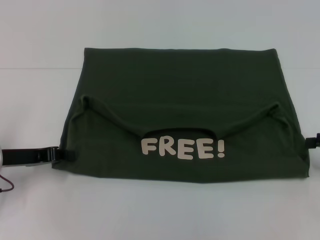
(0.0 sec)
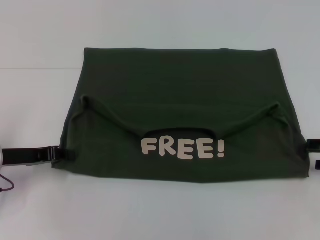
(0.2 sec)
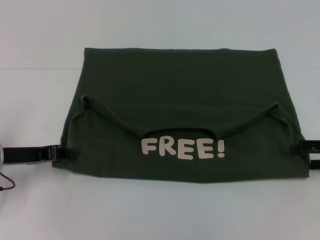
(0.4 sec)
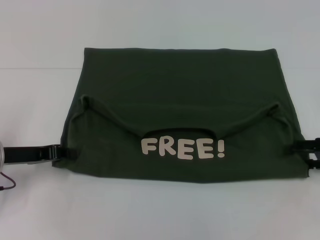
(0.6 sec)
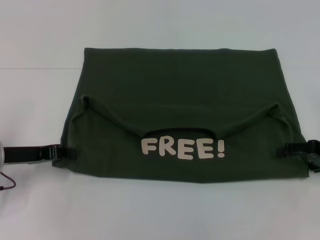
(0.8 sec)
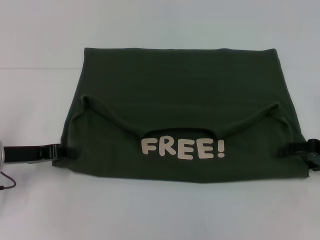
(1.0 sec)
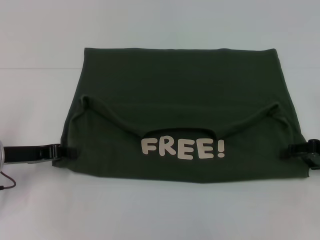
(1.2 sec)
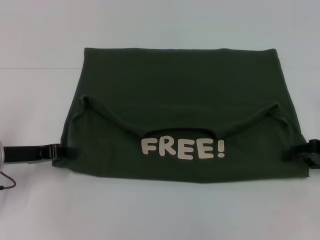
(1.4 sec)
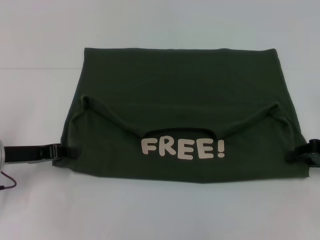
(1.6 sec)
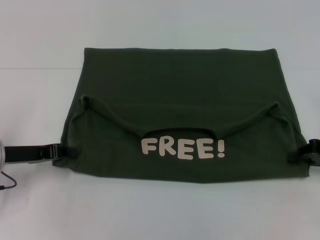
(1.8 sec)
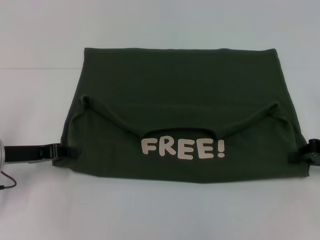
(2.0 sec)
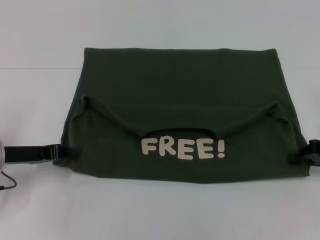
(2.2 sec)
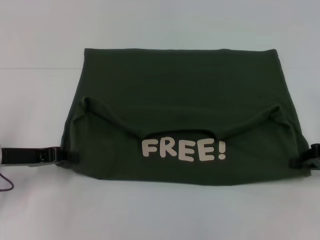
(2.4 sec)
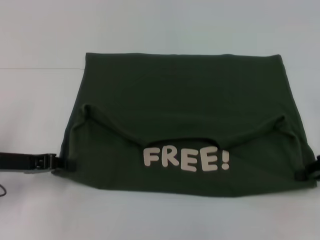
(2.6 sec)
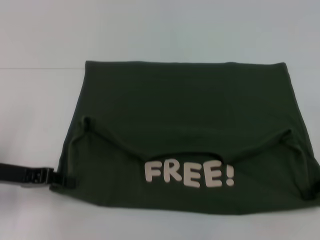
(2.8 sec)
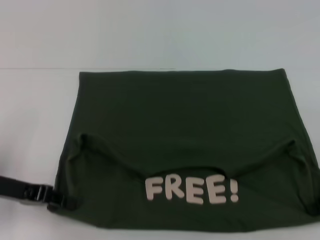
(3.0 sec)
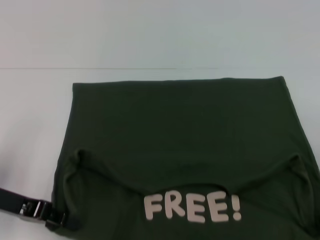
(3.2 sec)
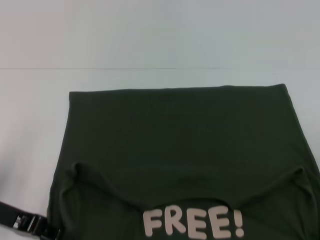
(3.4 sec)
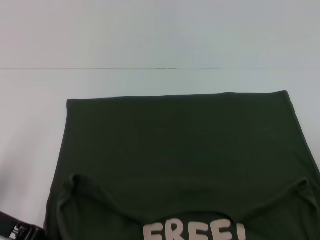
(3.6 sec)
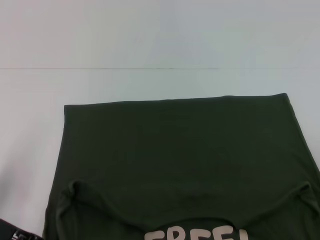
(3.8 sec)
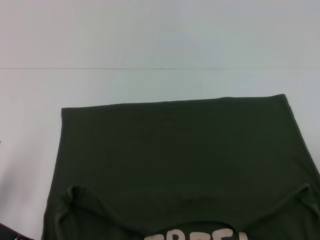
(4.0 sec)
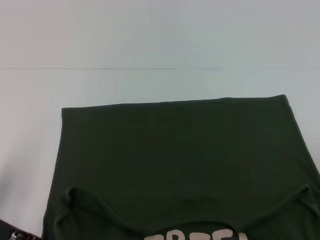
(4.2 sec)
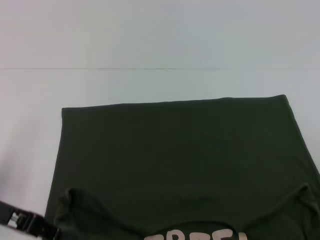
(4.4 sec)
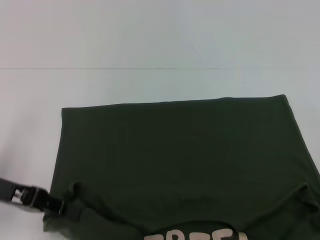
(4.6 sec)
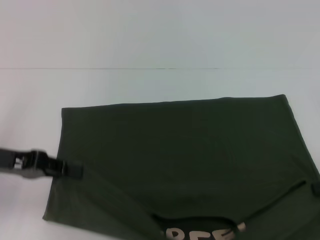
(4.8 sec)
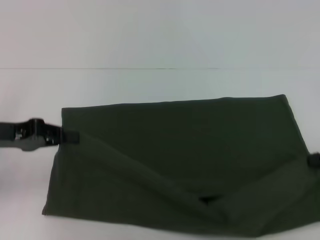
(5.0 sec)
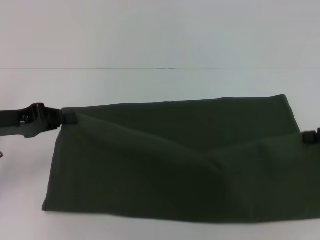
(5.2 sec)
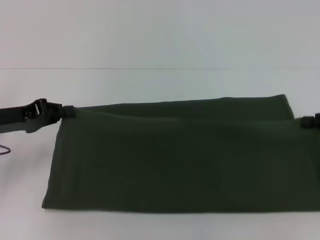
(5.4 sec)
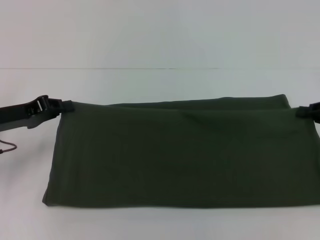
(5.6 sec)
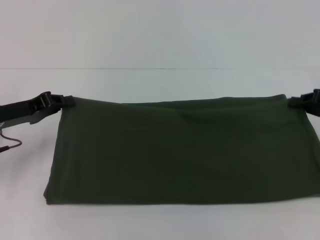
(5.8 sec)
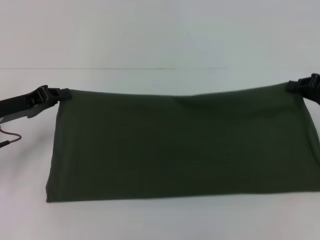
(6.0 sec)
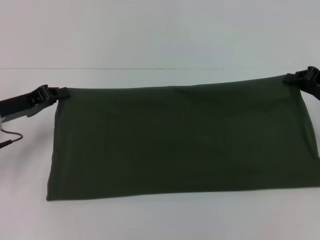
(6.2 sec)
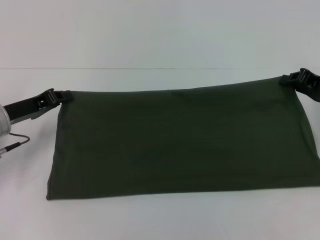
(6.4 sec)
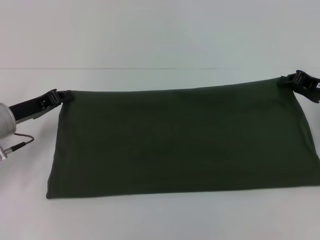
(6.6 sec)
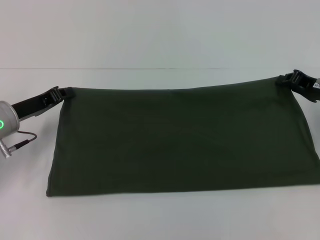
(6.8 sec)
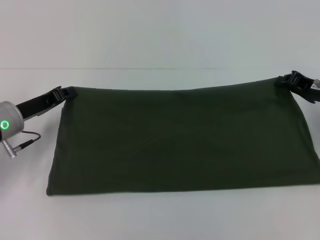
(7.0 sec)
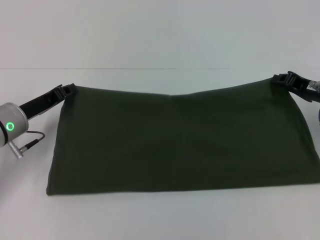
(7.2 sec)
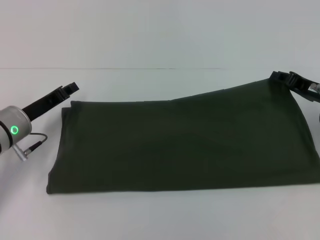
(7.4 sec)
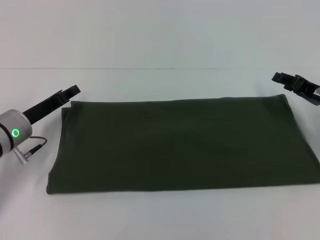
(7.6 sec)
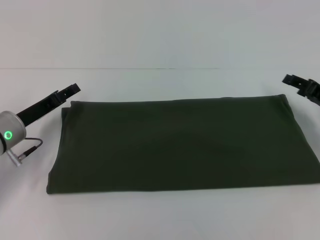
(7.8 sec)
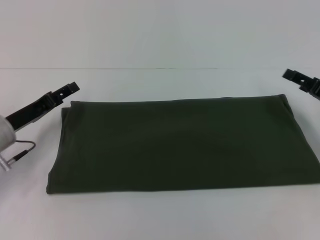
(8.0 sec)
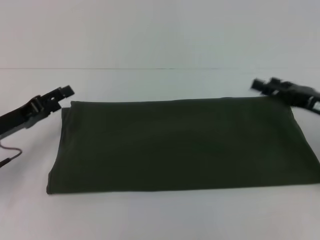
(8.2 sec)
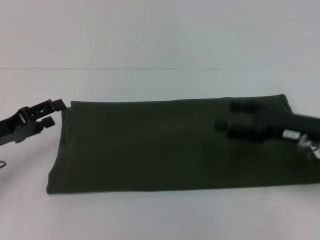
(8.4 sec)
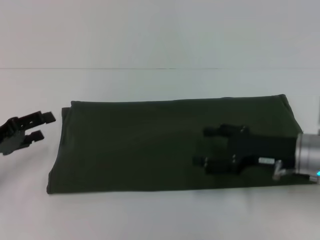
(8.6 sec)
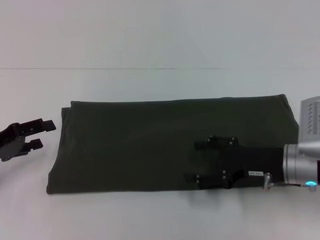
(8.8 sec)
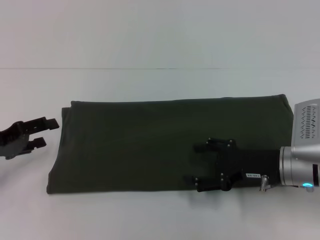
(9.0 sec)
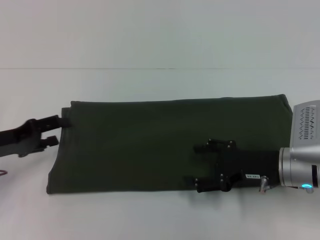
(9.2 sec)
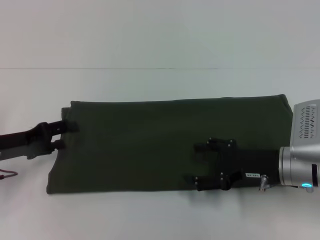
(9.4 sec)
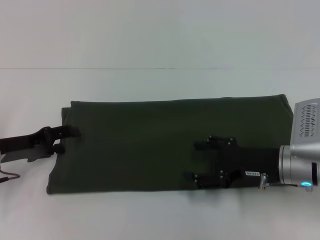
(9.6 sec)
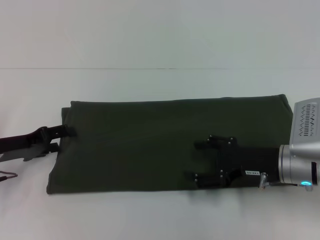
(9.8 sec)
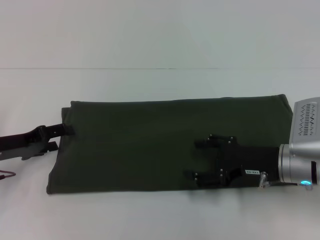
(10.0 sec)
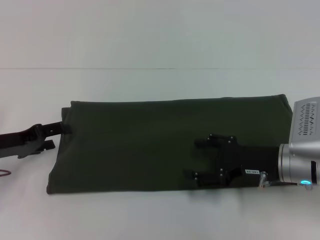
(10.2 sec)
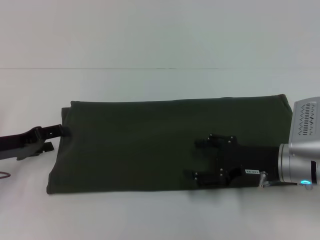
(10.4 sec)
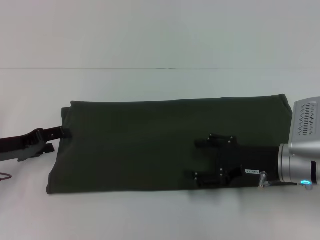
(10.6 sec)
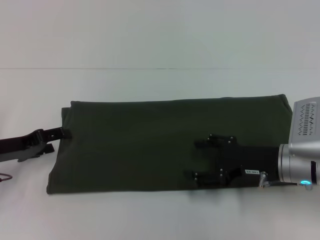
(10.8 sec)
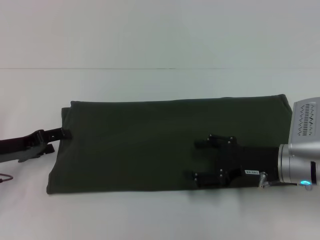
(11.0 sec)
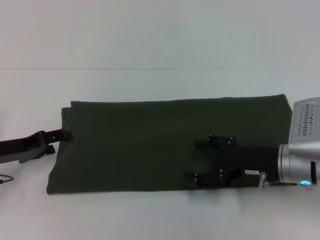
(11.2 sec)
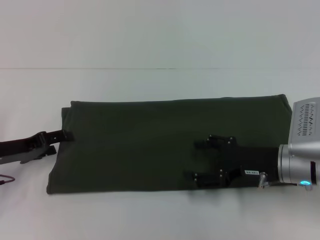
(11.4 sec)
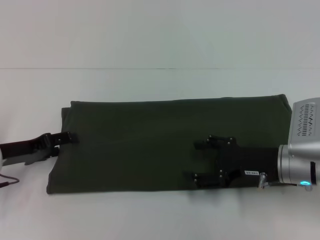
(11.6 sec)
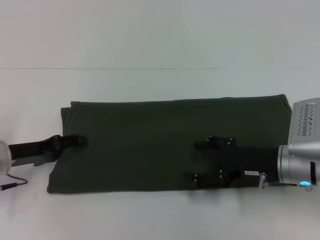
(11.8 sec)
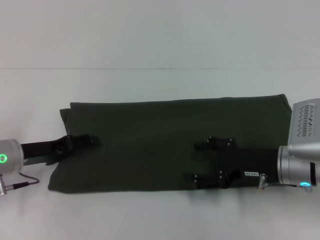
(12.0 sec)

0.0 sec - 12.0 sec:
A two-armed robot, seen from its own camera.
Step, 0.0 sec - 3.2 sec: Pull the clothes with your left hand.
Step, 0.0 sec - 3.2 sec: Pull the clothes with your right hand.
Step, 3.4 sec - 7.6 sec: Fold the clothes with your right hand.
0.0 sec - 1.6 sec: The right gripper closes.
1.6 sec - 3.0 sec: The right gripper closes.
4.4 sec - 6.0 sec: The two grippers go approximately 10 cm forward.
6.0 sec - 7.6 sec: The right gripper opens its fingers, while the left gripper ends up approximately 5 cm from where it was.
7.6 sec - 9.0 sec: Both grippers move to the left and backward, roughly 10 cm. The left gripper opens; the right gripper opens.
9.0 sec - 10.4 sec: The grippers make only small movements.
10.4 sec - 12.0 sec: There are only small adjustments of the grippers.

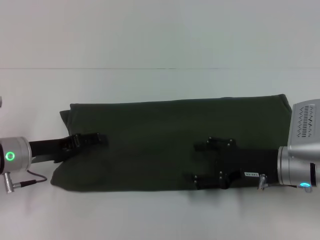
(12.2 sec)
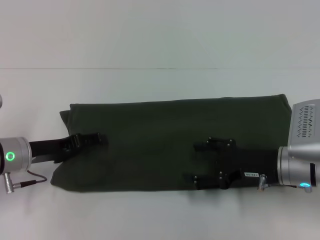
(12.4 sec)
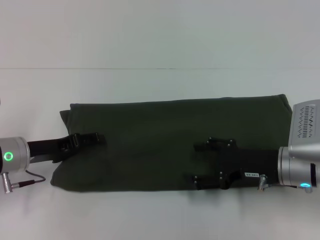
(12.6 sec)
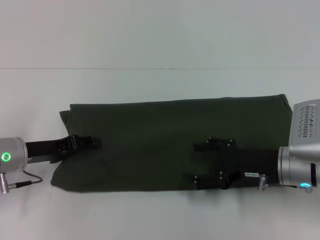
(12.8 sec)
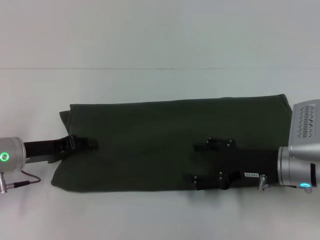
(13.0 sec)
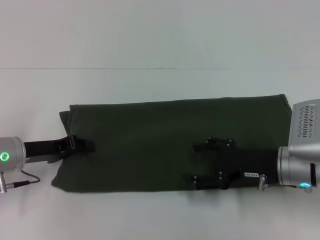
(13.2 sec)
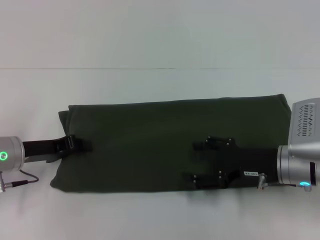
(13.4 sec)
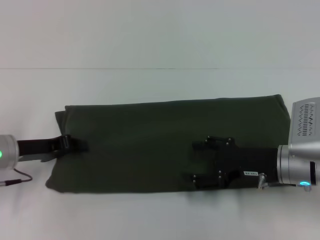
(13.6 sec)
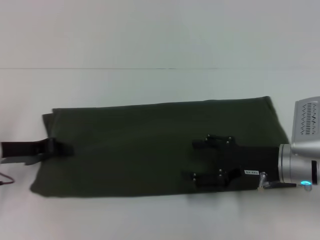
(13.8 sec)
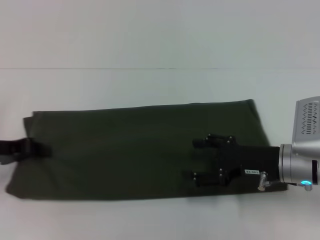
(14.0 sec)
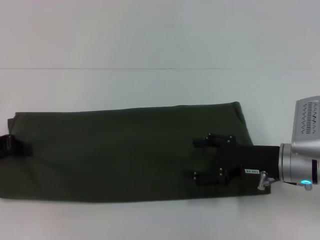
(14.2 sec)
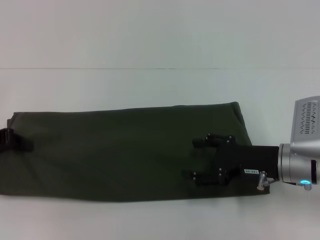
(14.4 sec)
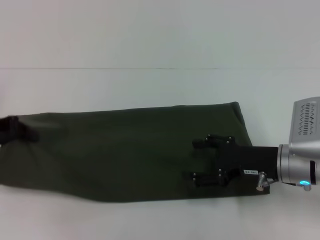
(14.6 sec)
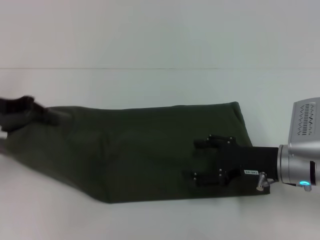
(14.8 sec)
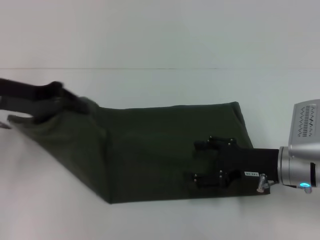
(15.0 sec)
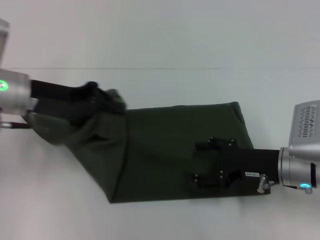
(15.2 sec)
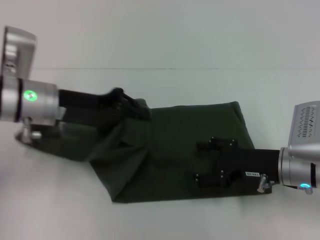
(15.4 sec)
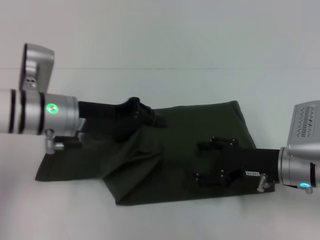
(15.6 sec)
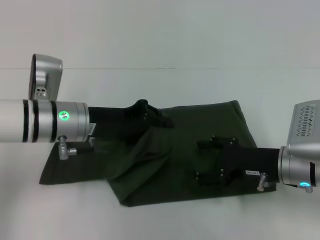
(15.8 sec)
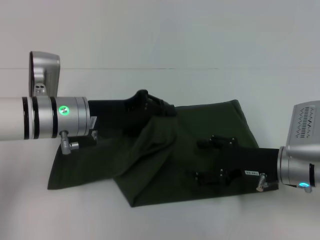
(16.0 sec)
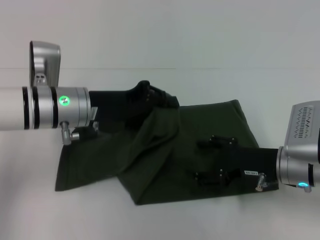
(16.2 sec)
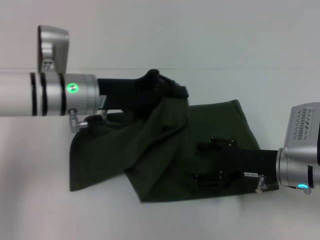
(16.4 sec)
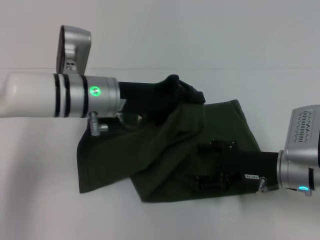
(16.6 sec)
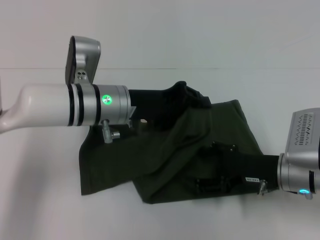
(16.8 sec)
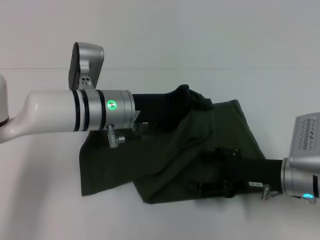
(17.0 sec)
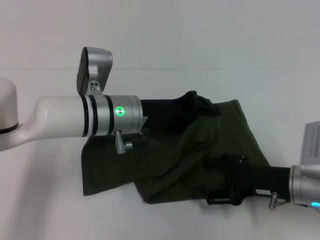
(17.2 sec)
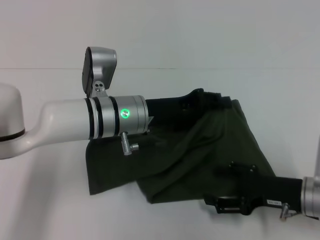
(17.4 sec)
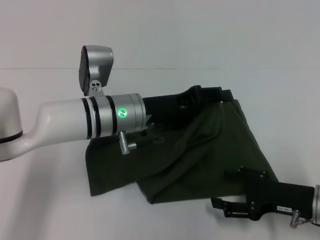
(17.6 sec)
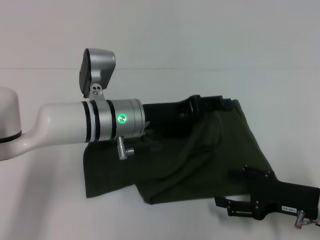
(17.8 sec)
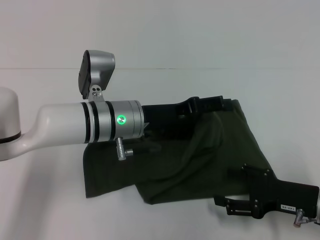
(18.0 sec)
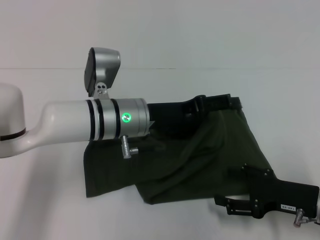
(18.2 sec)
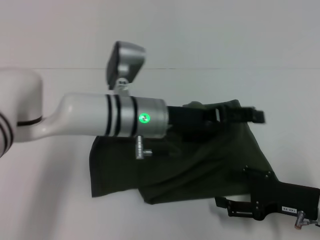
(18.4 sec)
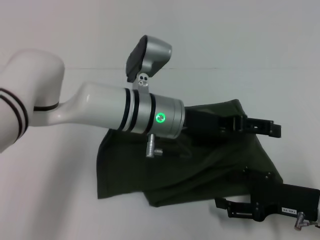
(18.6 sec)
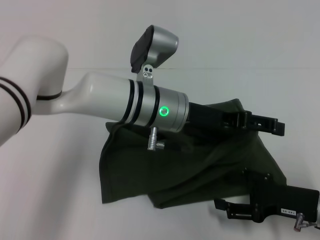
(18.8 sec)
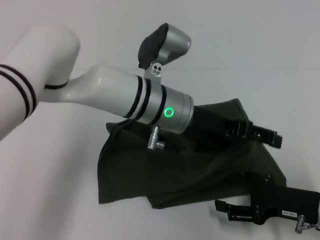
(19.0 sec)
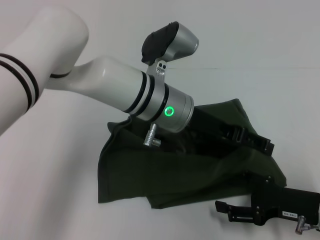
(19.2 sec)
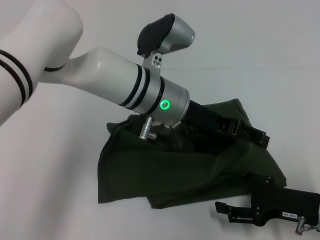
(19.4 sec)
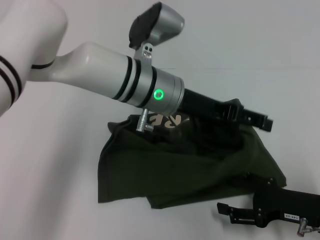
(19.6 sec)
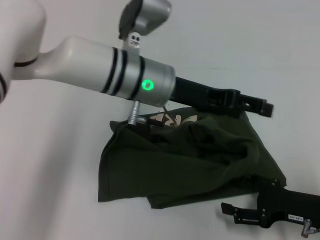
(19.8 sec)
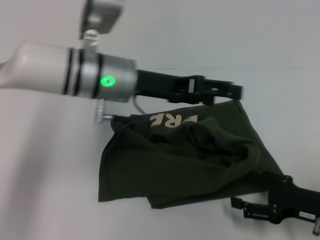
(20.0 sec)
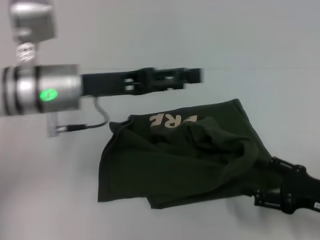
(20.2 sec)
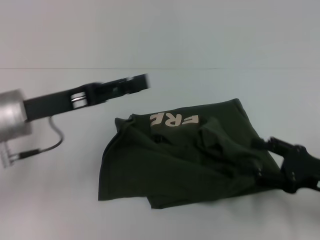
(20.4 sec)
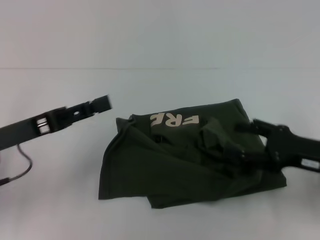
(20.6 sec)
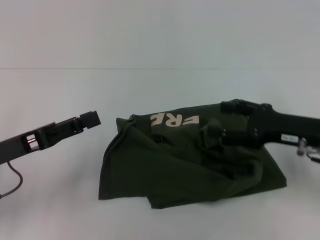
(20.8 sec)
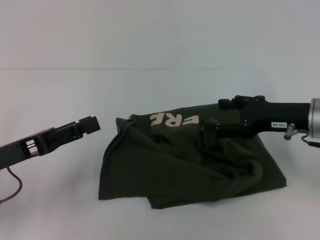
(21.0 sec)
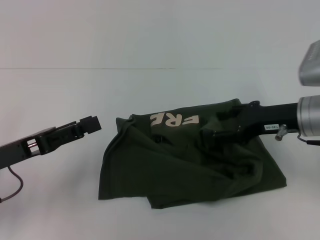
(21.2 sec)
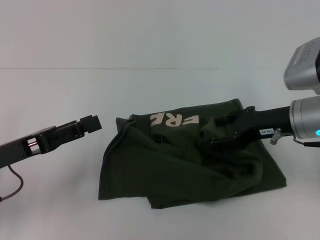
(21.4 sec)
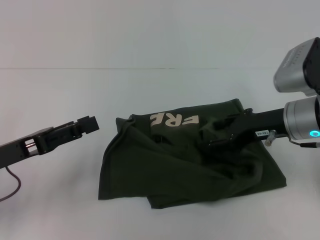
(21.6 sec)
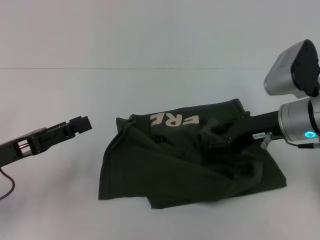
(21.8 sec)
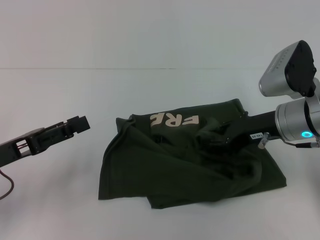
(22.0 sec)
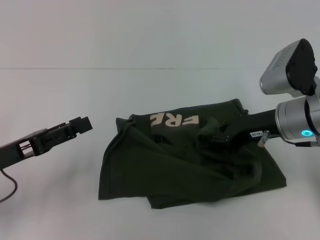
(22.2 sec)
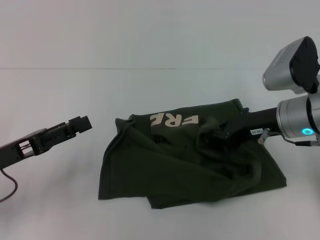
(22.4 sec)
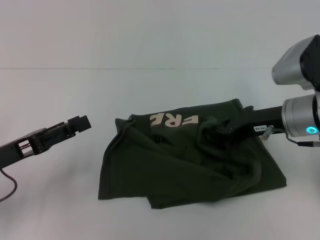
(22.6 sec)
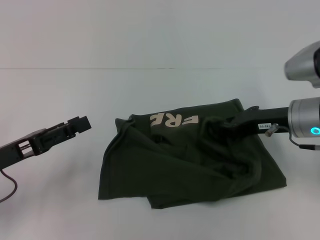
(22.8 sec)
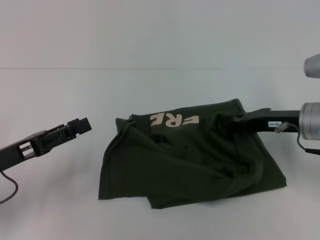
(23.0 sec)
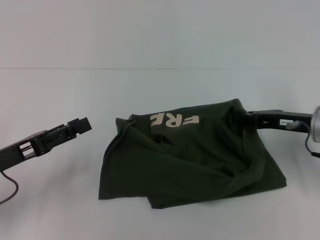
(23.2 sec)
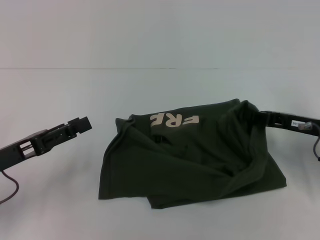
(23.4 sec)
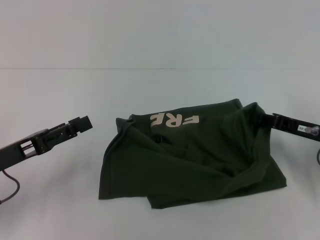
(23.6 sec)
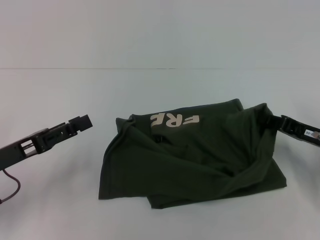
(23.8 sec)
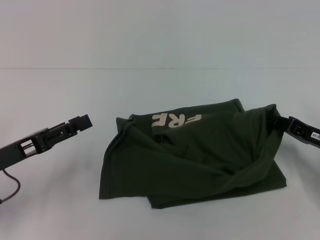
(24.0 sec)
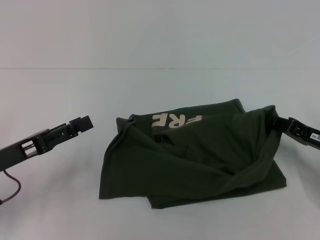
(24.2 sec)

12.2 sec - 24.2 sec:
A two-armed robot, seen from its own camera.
12.2 sec - 13.8 sec: The left gripper closes.
13.8 sec - 15.2 sec: The left gripper shifts about 10 cm upward and to the right.
15.2 sec - 16.6 sec: The left gripper goes about 10 cm to the right.
16.6 sec - 18.2 sec: The left gripper moves about 5 cm, and opens. The right gripper is displaced backward by some 5 cm.
18.2 sec - 19.8 sec: The left gripper goes roughly 5 cm upward.
19.8 sec - 21.2 sec: The left gripper moves to the left and backward, roughly 25 cm. The right gripper is displaced upward and forward by about 15 cm.
21.2 sec - 22.6 sec: The right gripper closes its fingers.
22.6 sec - 24.2 sec: The right gripper heads to the right and downward, covering about 15 cm.
